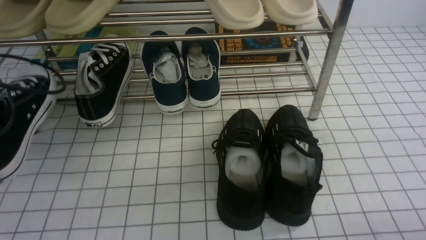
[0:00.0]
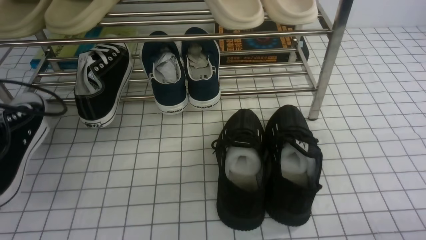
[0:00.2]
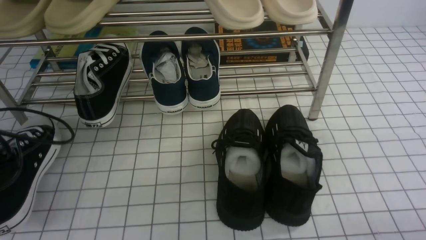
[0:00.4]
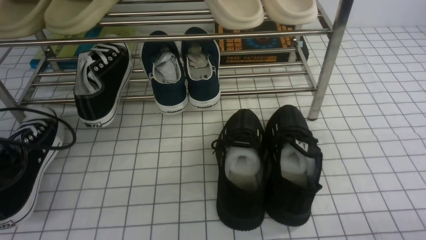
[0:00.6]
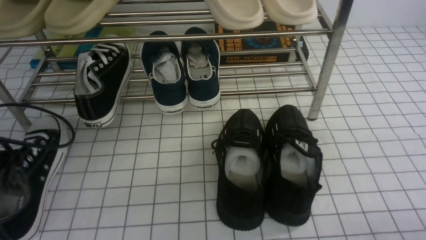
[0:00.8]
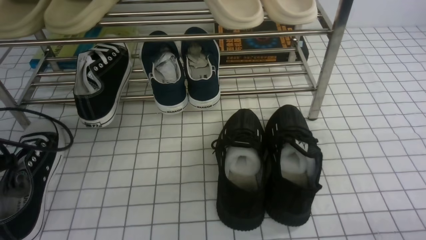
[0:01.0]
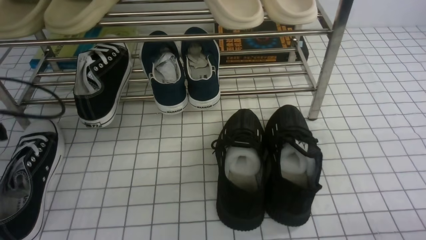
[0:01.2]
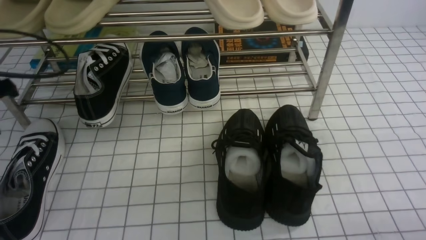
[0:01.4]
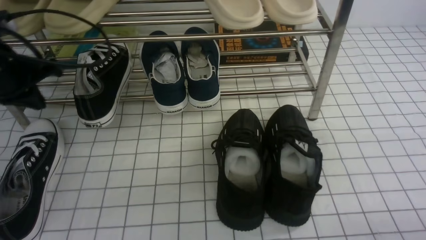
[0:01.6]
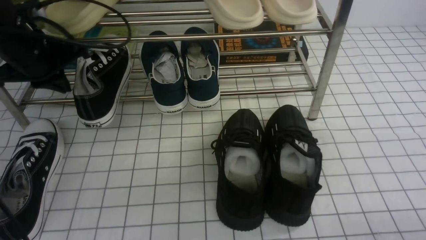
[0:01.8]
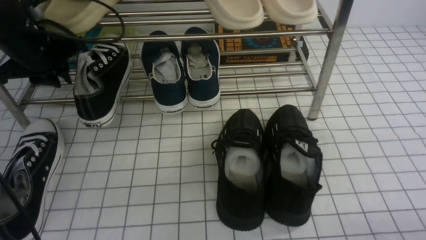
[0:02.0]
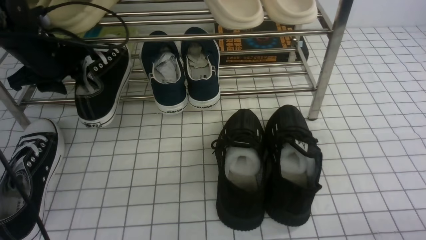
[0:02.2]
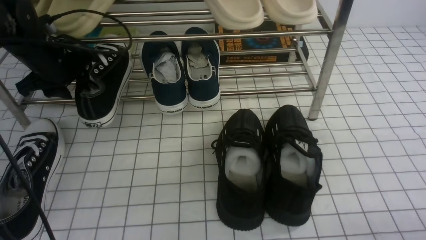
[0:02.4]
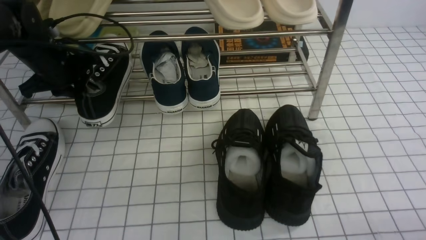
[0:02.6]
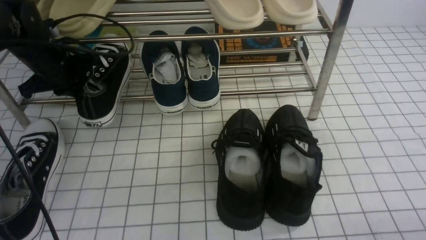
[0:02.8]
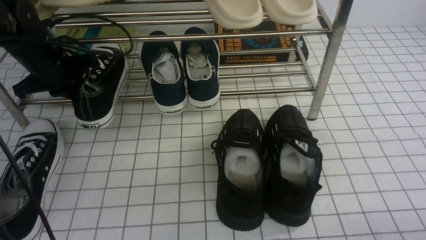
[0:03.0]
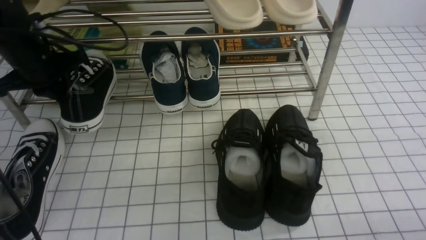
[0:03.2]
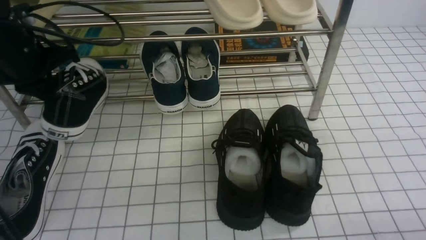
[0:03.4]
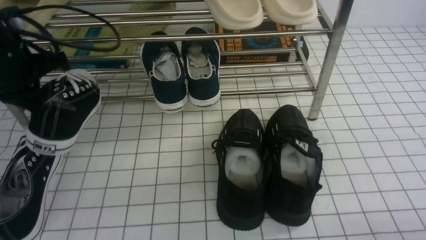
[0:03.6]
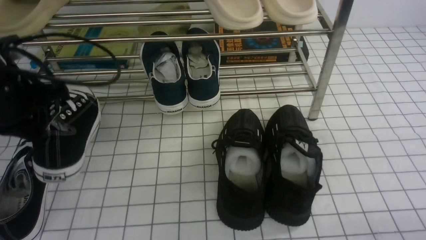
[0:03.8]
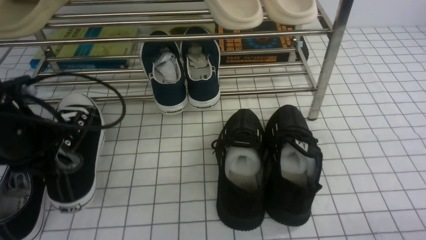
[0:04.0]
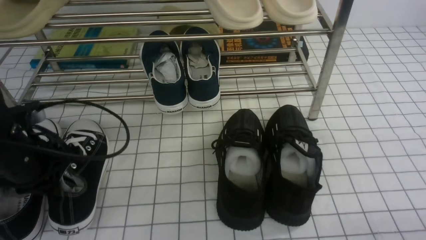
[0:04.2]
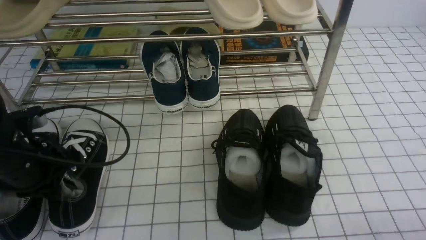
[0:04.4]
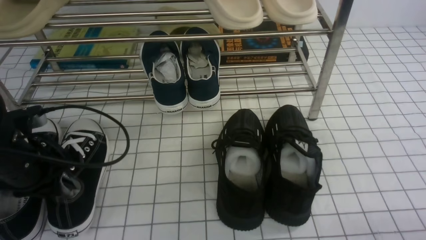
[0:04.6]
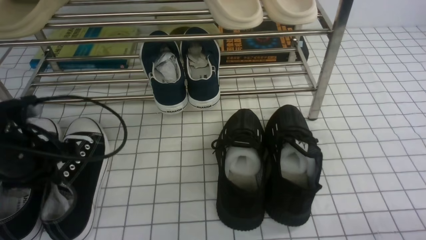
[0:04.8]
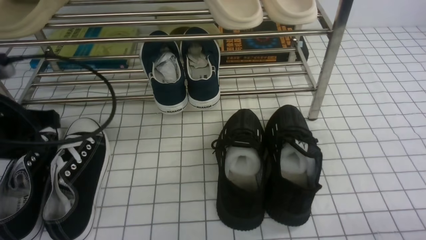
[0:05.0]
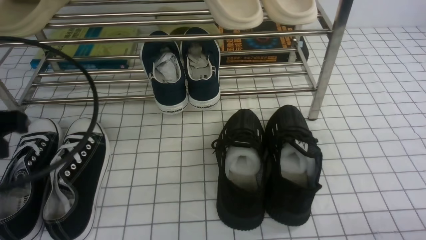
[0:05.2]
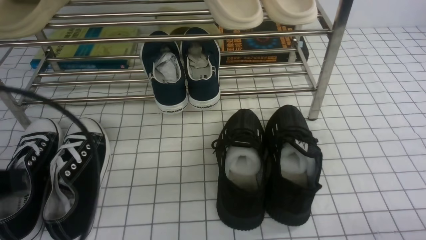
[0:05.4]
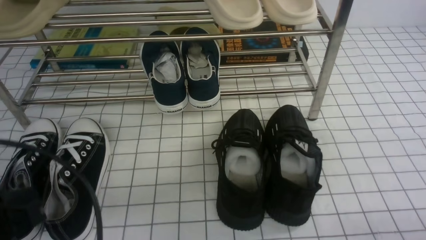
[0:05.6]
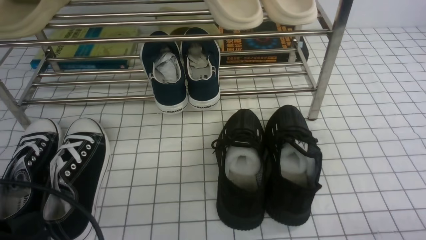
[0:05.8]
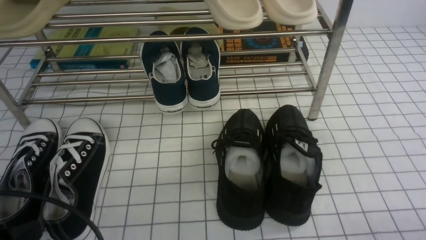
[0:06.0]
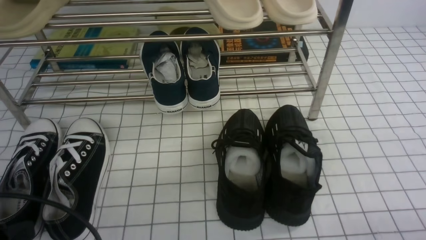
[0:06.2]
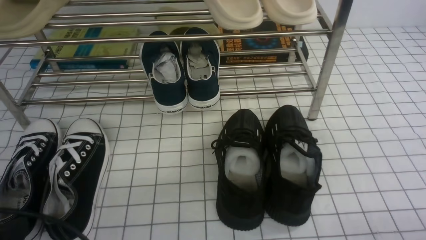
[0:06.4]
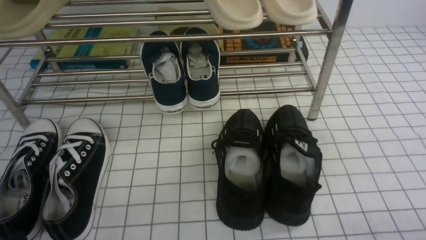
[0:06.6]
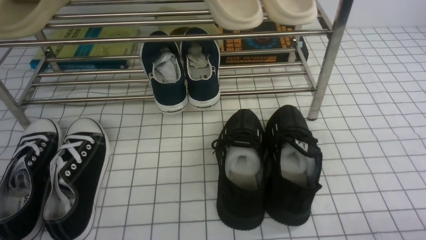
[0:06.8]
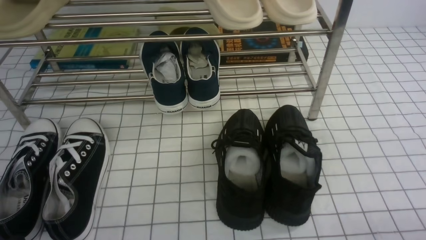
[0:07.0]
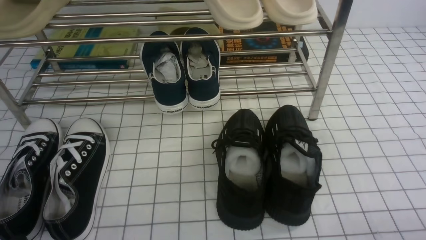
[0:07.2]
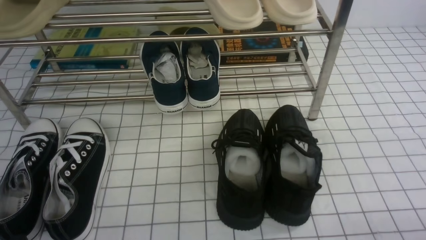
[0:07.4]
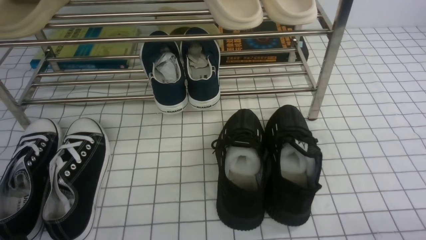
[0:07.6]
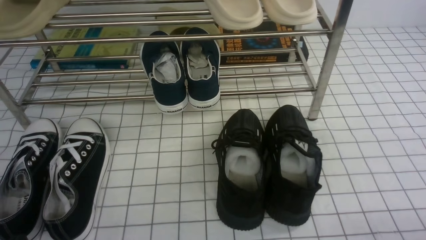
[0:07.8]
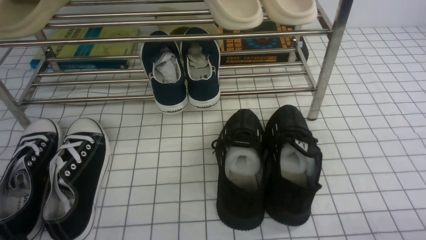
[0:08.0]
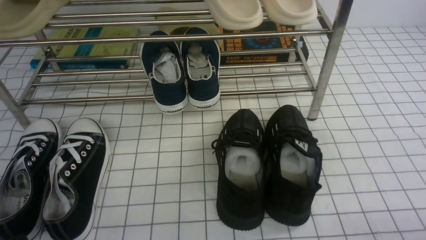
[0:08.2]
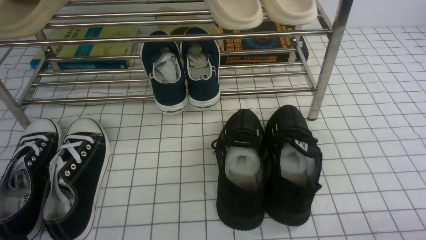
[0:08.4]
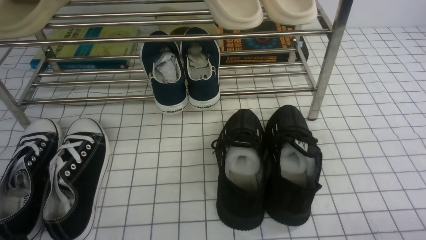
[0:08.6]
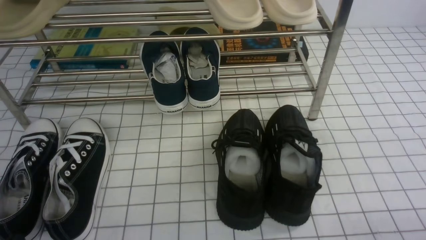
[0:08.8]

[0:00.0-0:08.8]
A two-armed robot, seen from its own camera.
Step, 0:00.0 to 0:01.0: Use your left arm to remove the clamped shoe from the shoe rack and put it down.
Step, 0:01.2 to 0:02.6: use the left arm to clamp a shoe on the left side of the shoe rack.
Step, 0:02.8 to 0:05.0: Use your left arm to remove the clamped shoe from the shoe rack and put it down.
0:00.0 to 0:01.4: The left gripper goes downward and returns, some 5 cm each way, and opens, then closes again.
0:01.4 to 0:03.0: The left gripper moves forward and to the right, approximately 10 cm, and opens and closes again.
0:03.0 to 0:04.4: The left gripper goes roughly 15 cm backward.
0:04.4 to 0:05.8: The left gripper goes about 15 cm backward, and opens, then closes again.
0:05.8 to 0:07.4: The left gripper travels downward by some 10 cm.
0:07.4 to 0:08.8: Neither gripper changes place.
